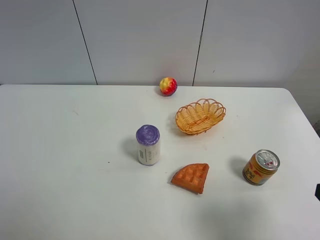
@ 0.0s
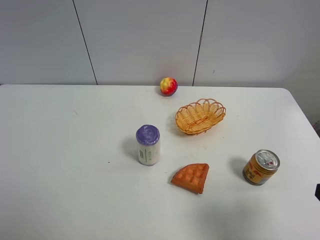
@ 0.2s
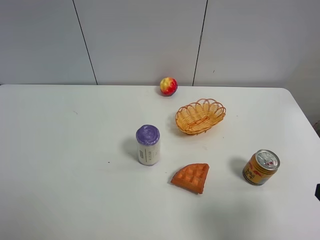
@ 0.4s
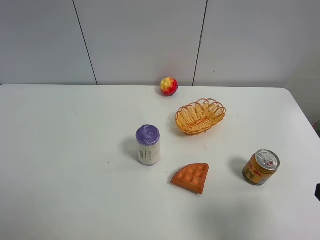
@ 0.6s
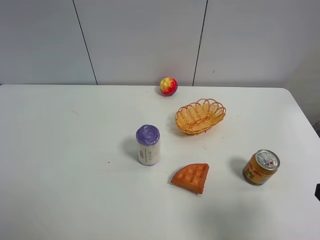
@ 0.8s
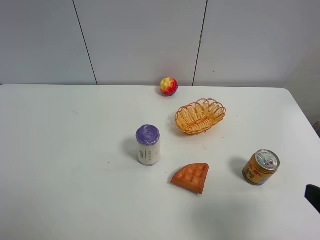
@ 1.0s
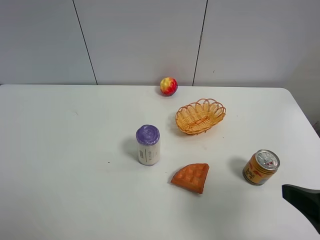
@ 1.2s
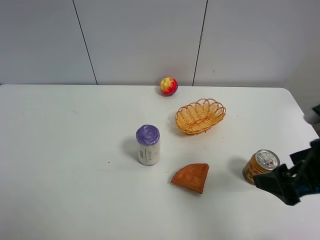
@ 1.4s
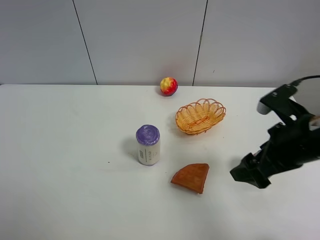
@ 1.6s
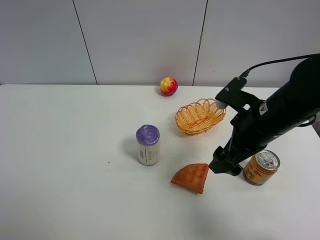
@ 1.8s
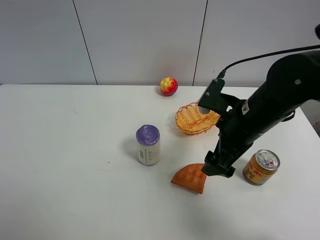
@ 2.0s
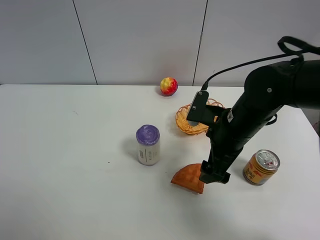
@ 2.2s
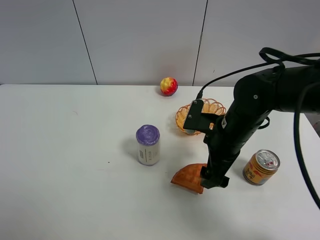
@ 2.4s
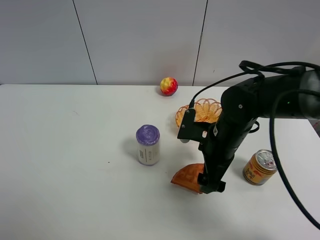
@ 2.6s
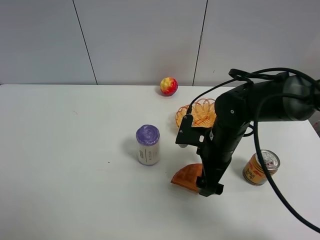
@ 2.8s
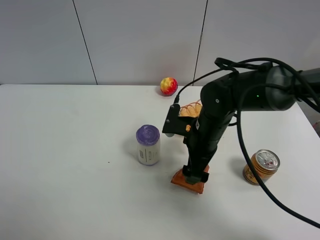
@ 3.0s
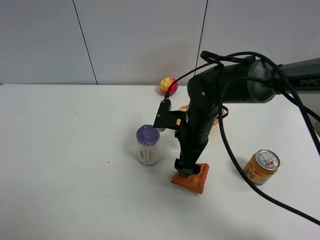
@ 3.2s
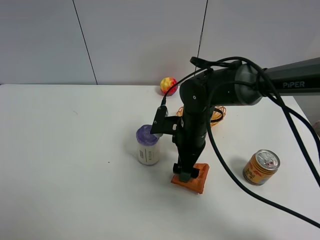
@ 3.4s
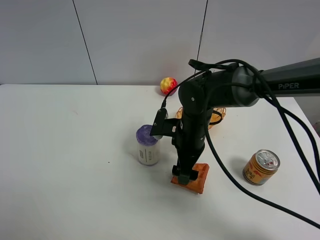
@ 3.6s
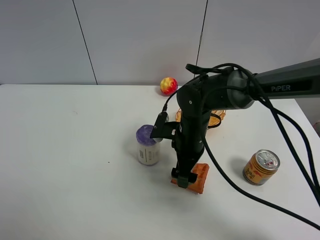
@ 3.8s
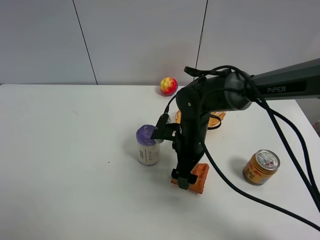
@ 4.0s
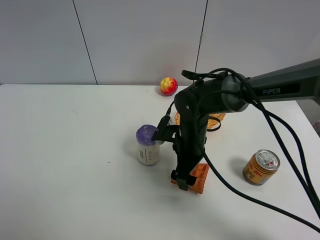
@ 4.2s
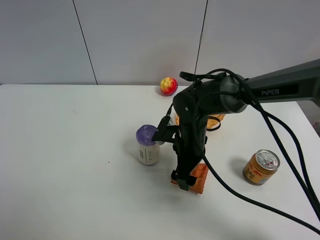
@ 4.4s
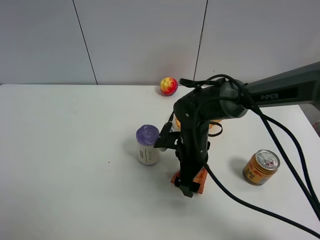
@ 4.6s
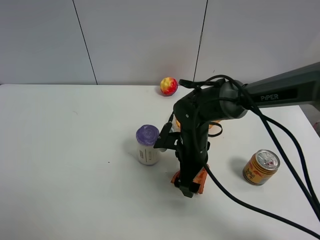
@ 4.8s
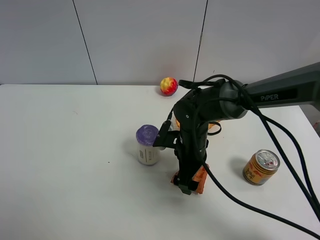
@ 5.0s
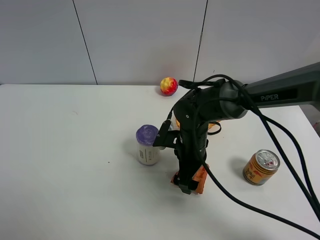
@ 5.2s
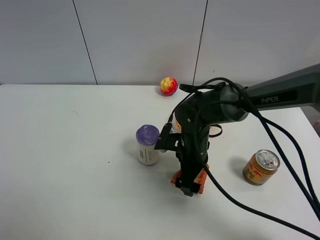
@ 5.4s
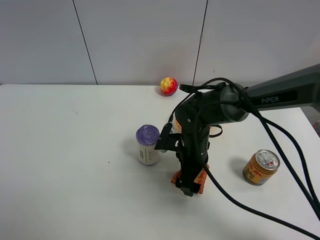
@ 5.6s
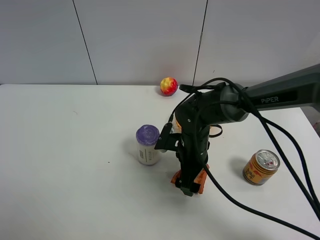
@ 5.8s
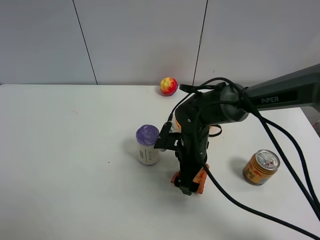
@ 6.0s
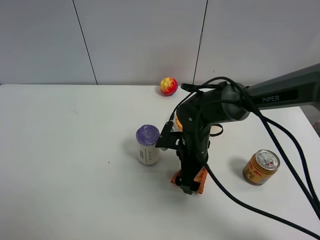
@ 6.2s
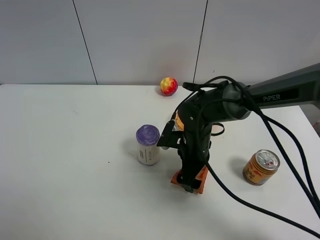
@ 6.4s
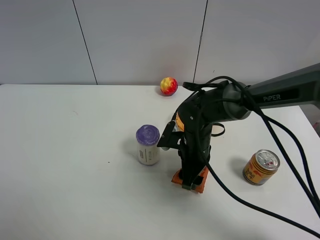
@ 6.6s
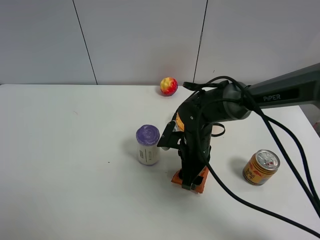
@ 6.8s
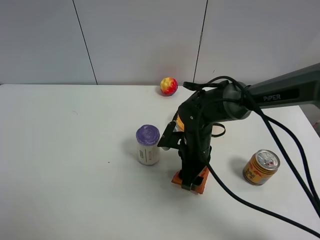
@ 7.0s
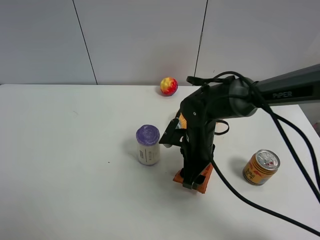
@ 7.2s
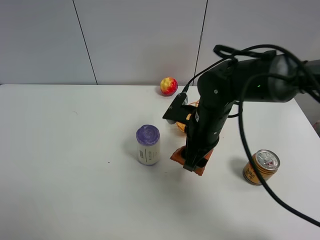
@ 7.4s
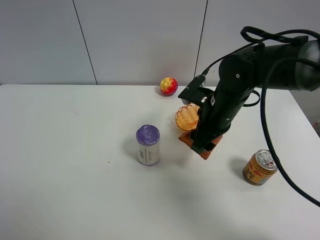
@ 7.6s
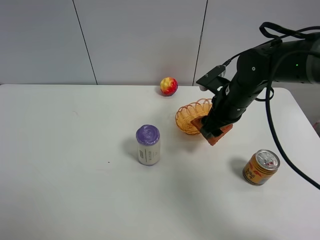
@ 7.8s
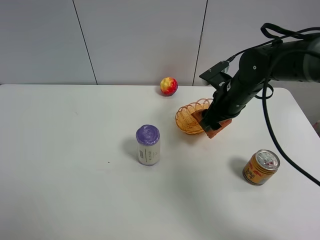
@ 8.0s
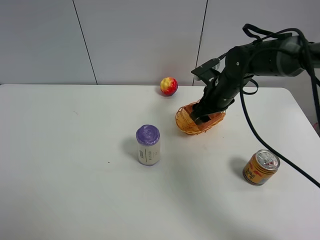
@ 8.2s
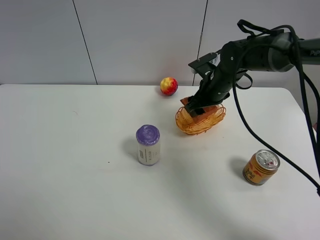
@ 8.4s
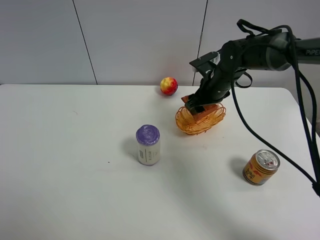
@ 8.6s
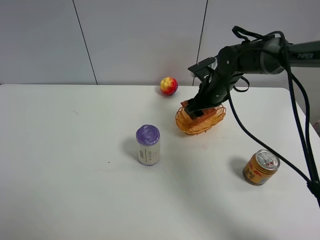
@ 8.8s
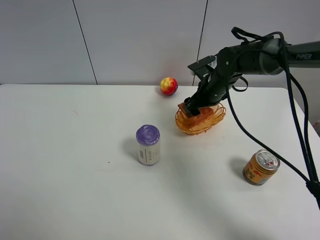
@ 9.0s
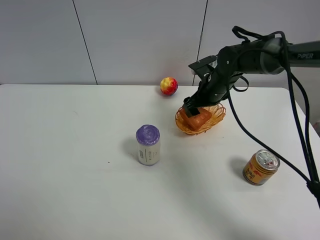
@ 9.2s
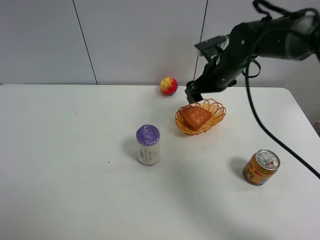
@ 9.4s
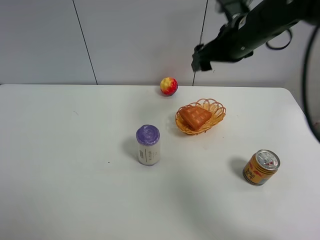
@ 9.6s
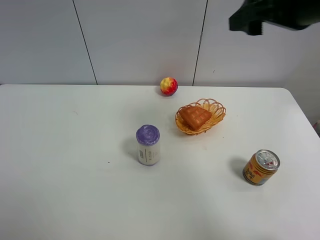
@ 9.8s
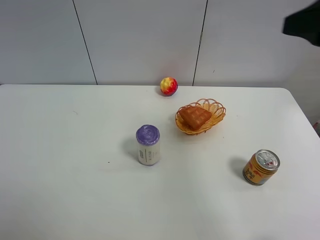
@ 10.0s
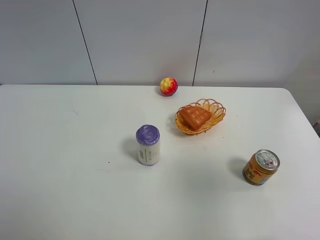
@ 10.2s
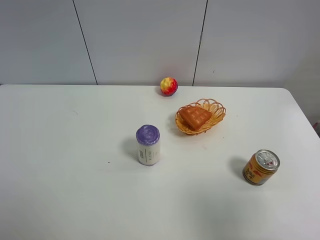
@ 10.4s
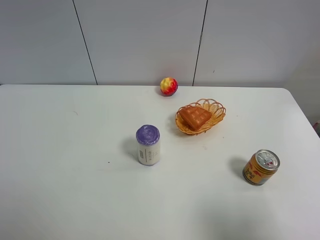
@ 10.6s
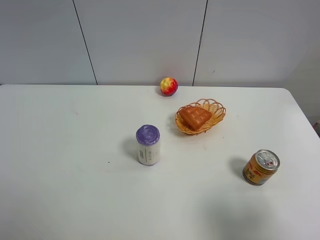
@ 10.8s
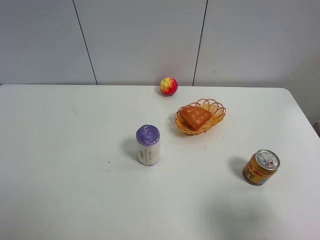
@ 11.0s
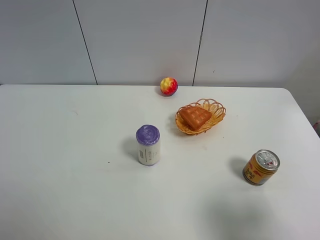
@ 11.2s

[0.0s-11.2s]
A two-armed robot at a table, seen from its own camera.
Task of the whole recording: Put the bakery in the basket.
Step, 0.0s to 6.6s: Grasp the bread with right gripper.
Step, 6.8s to 9.4s: Place the bread in the basket with right gripper.
0.0s to 1.6s: The right gripper shifts approximately 15 cm forward.
1.6s to 3.2s: The right gripper is displaced to the left, forward and downward by roughly 20 cm.
3.2s to 4.8s: The grippers make only small movements.
4.8s to 6.4s: Neither gripper changes place.
6.4s to 8.0s: The right gripper is displaced upward, to the right and forward by about 15 cm, and closes.
8.0s to 9.6s: The right gripper moves upward, about 10 cm, and opens its fingers.
9.6s to 11.2s: The right gripper shifts approximately 35 cm backward and to the right.
